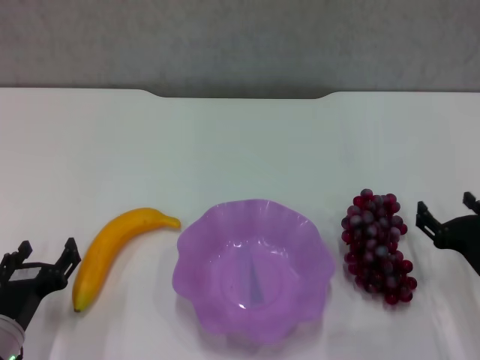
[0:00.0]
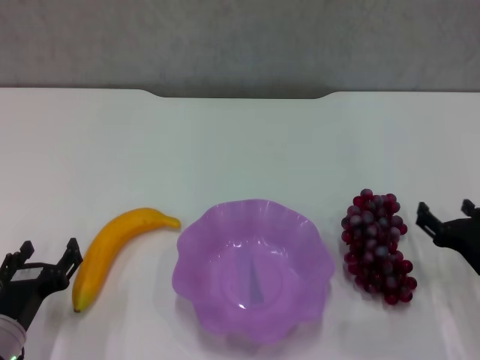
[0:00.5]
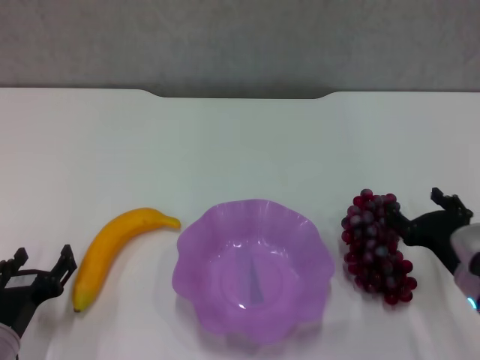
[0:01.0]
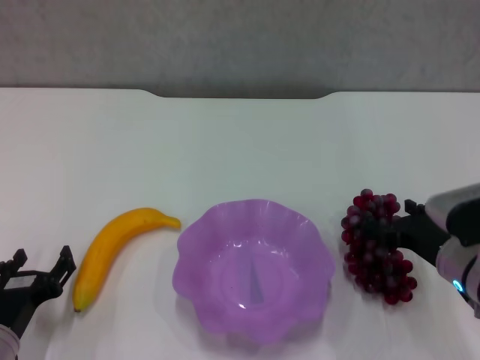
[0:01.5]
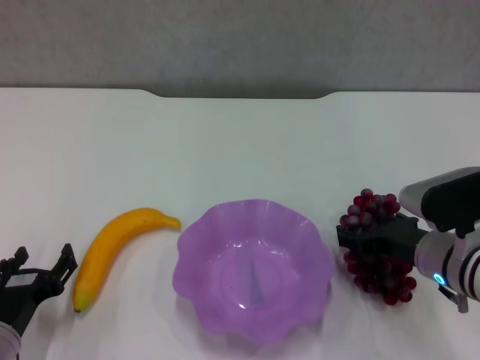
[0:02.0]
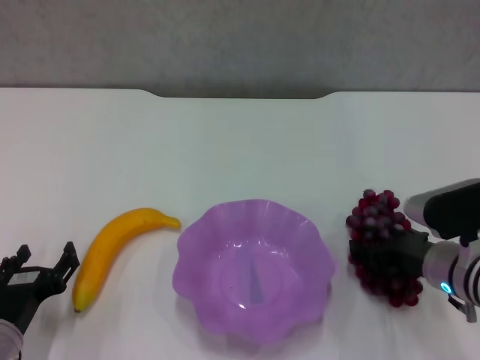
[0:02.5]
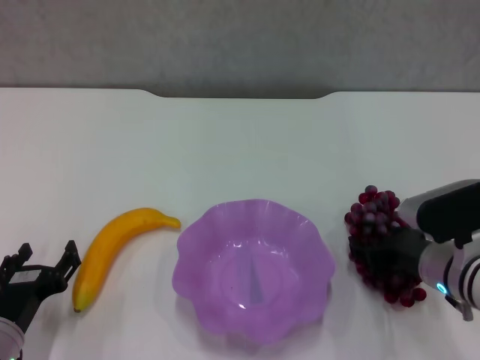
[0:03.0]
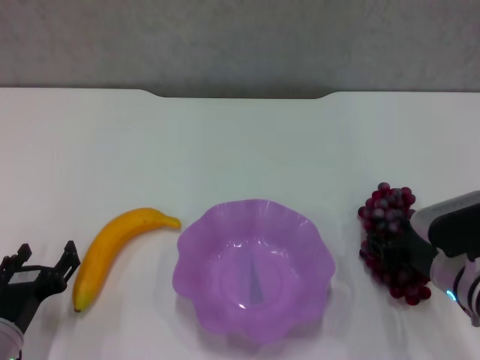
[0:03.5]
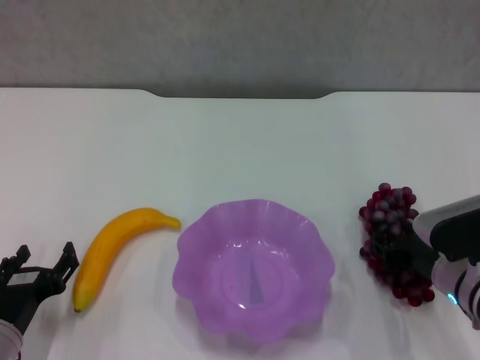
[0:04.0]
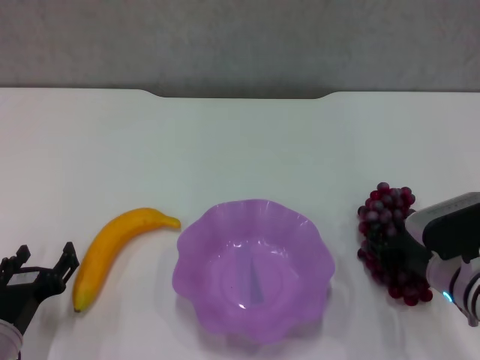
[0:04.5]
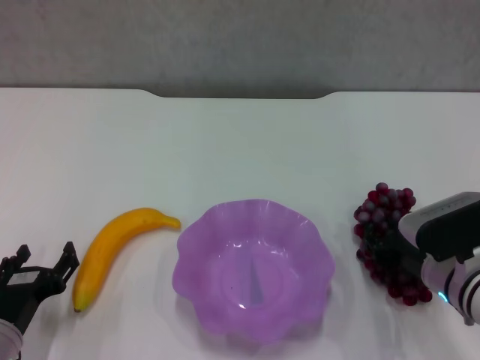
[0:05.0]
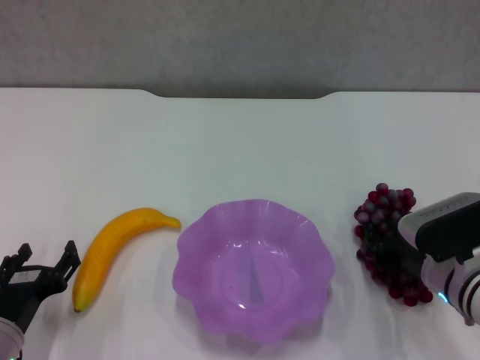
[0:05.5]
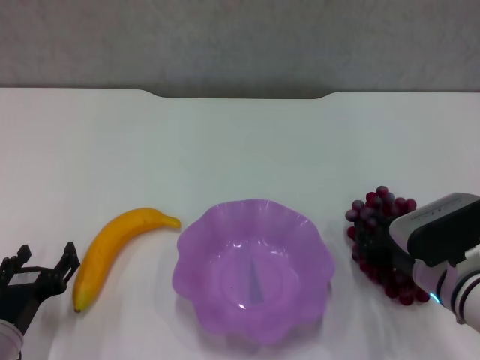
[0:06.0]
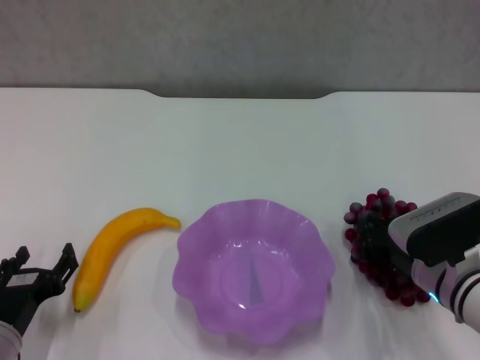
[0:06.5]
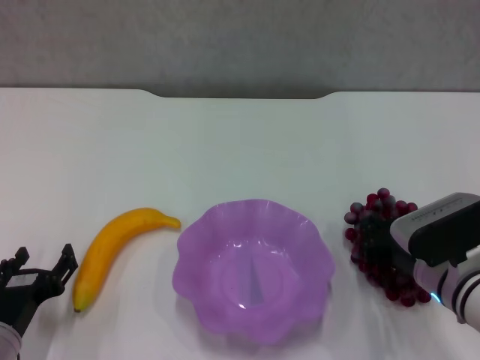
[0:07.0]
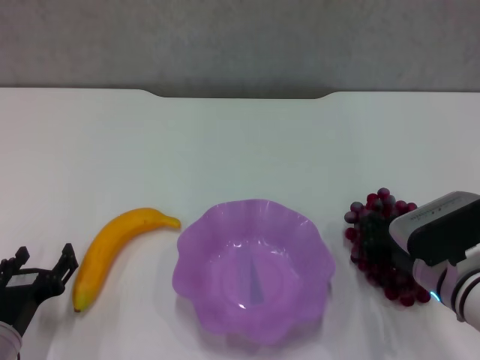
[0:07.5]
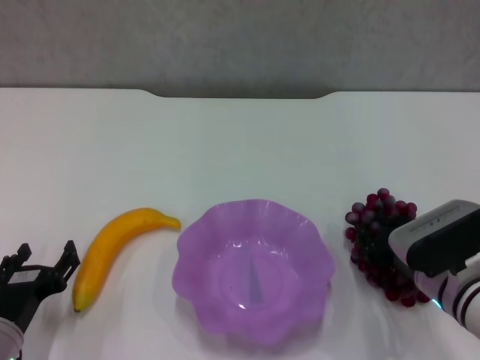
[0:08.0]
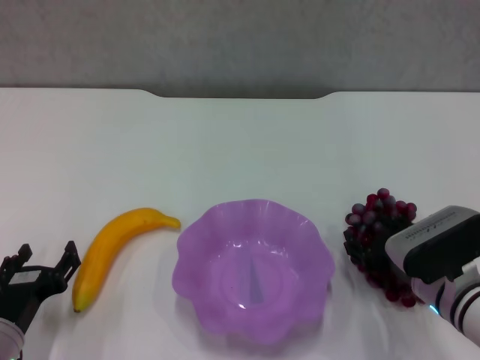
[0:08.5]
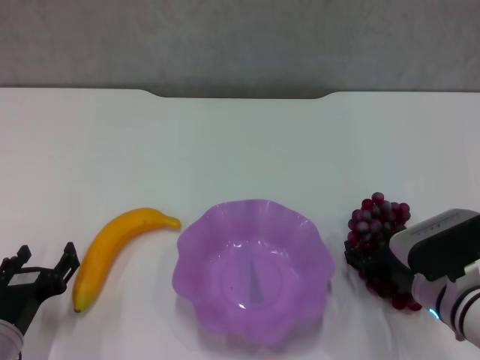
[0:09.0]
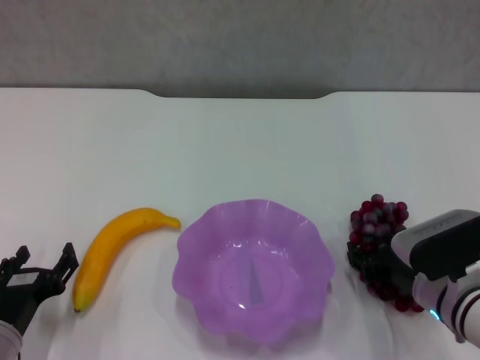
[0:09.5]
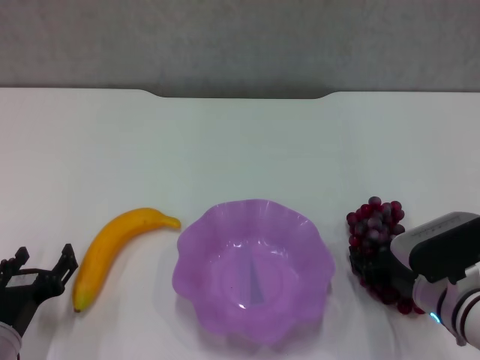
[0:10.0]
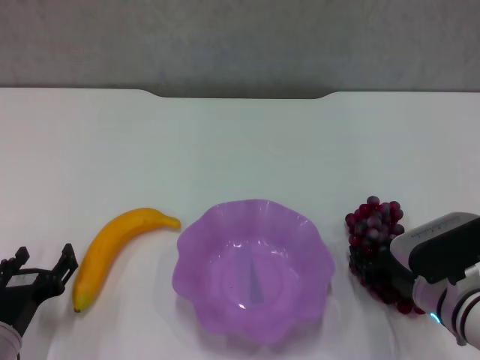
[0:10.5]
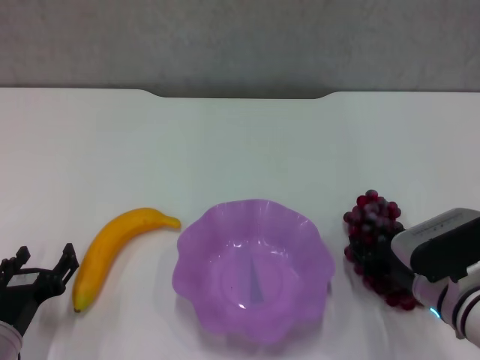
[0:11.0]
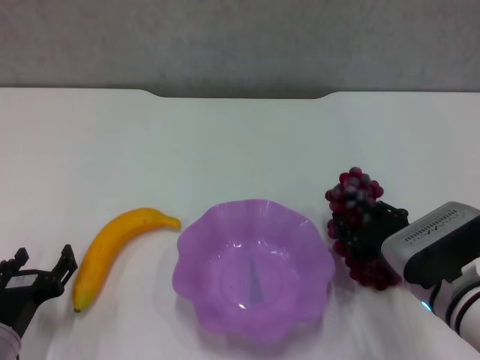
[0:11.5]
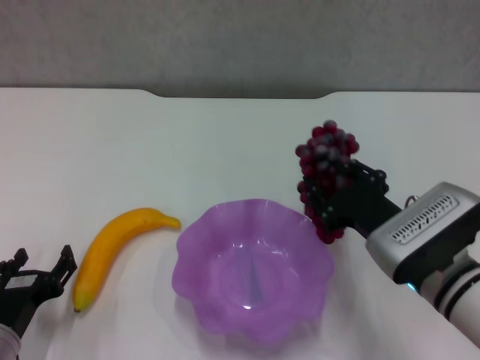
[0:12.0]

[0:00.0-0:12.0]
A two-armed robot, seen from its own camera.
Step, 0.0 to 10.5 s: Grasp the grape with right gripper.
0.0 to 2.0 s: The right gripper moves to the left, approximately 5 cm.
2.0 to 6.0 s: The grippers stay close to where they were, moving slightly.
6.0 to 8.0 s: Both grippers stay put.
8.0 to 10.0 s: The right gripper opens its fingers.
10.0 to 12.0 s: The right gripper is displaced upward by roughly 5 cm.

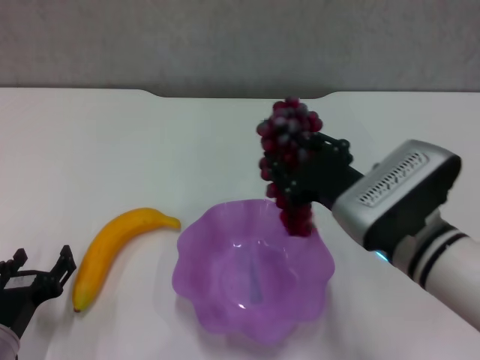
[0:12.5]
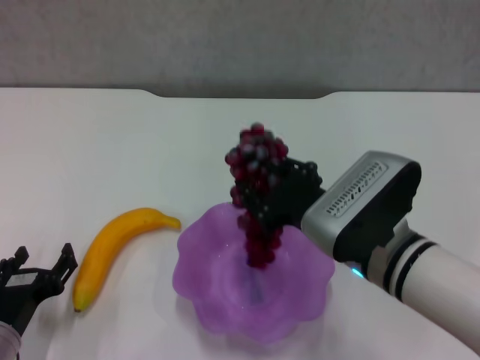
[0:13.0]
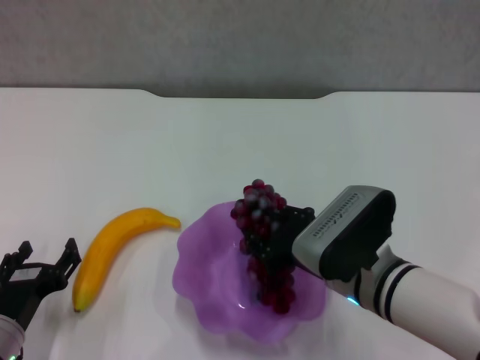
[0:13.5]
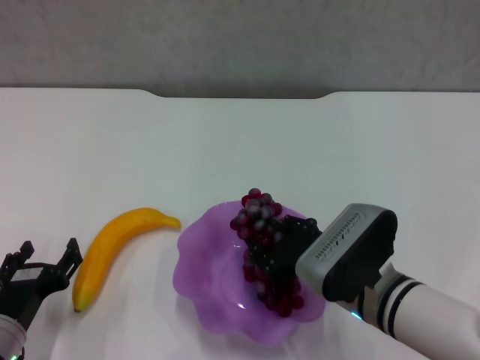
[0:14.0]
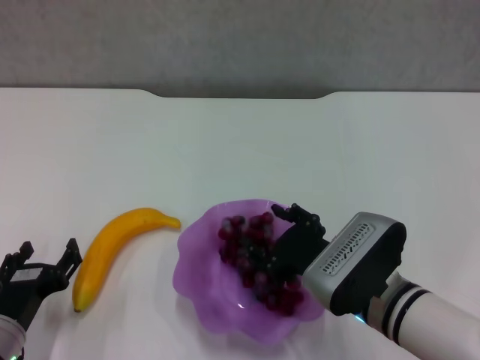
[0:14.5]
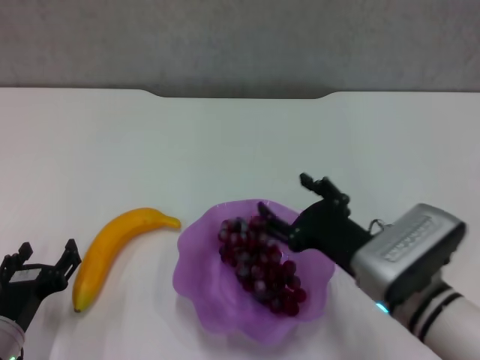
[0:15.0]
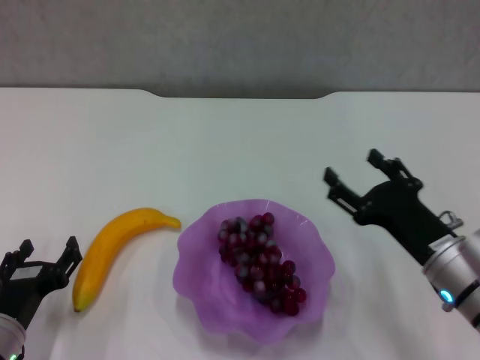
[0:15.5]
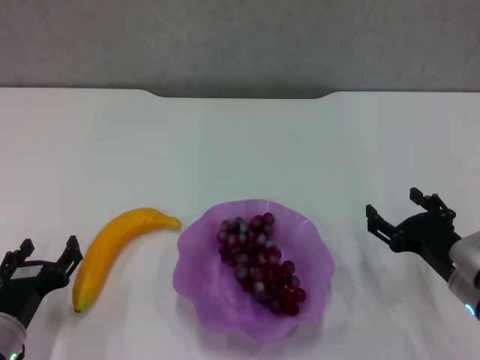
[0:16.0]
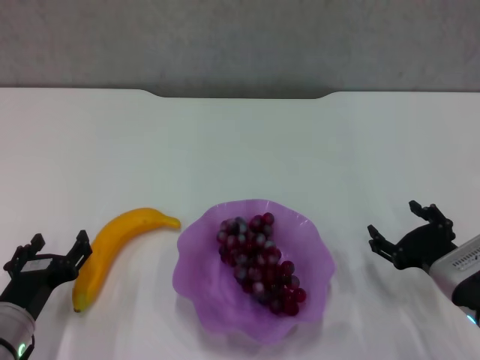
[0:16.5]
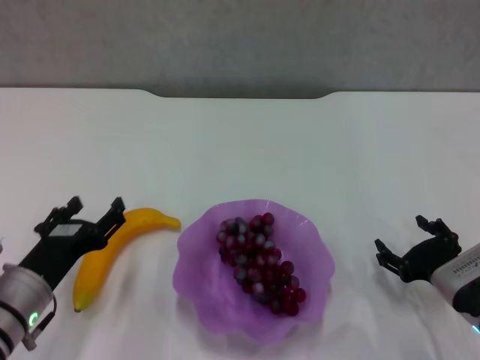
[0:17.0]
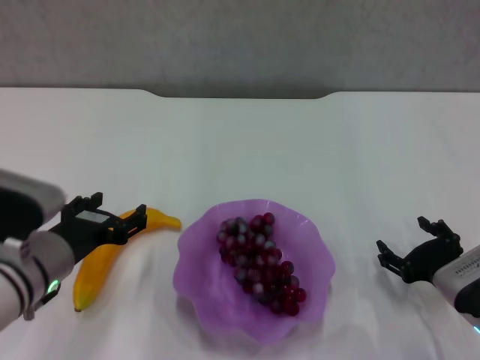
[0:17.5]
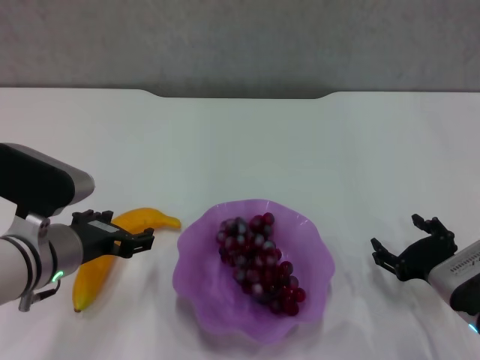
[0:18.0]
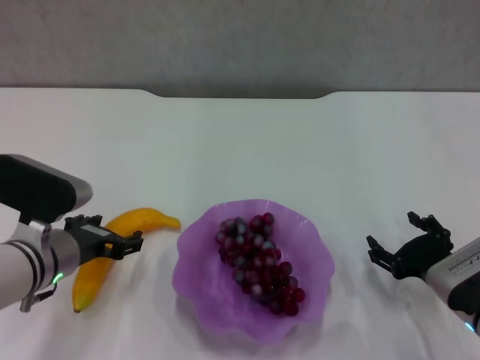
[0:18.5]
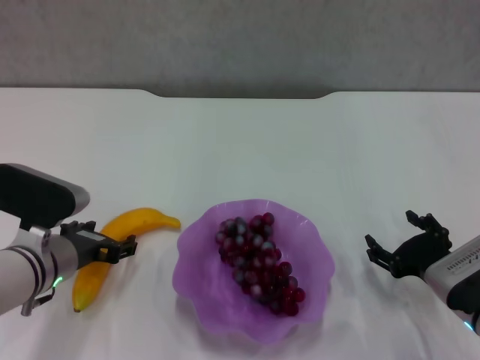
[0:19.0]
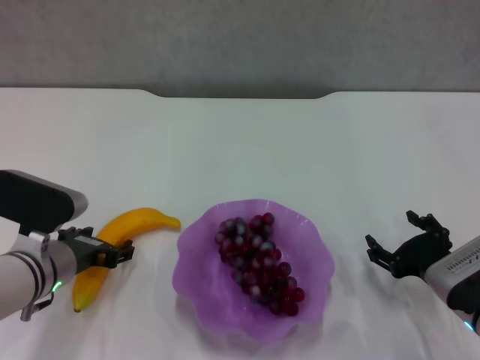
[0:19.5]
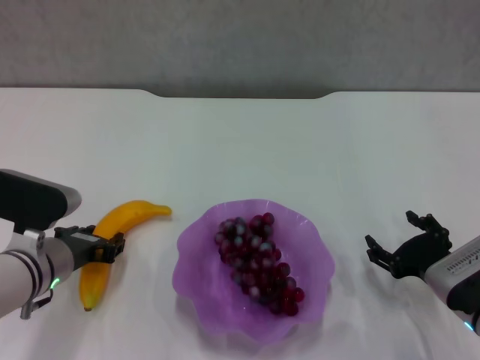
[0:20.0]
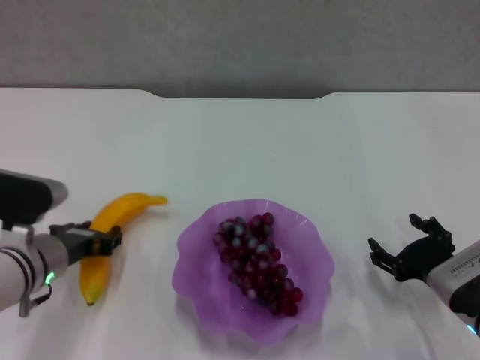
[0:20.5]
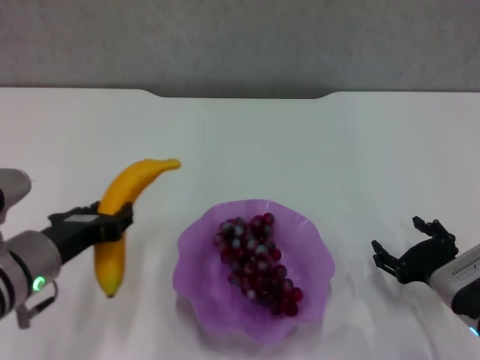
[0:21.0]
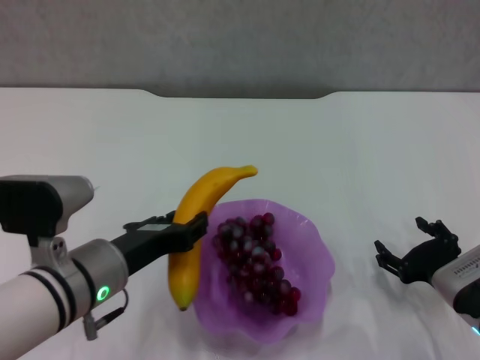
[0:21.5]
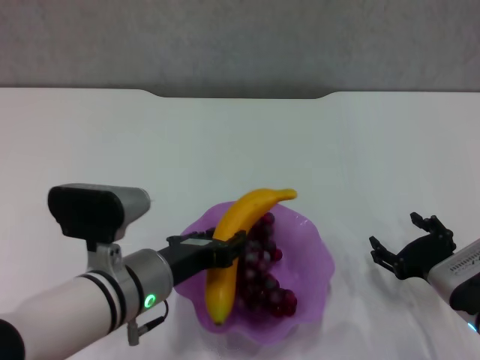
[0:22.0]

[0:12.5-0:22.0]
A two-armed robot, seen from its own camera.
Step, 12.5 to 15.0 s: Place the grape in the purple plate with right gripper.
Step, 15.5 to 20.0 s: Grasp the banana with left gripper.
12.5 to 14.5 s: The right gripper heads downward, covering approximately 5 cm.
14.5 to 16.5 s: The right gripper heads to the right, covering approximately 15 cm, and opens.
16.5 to 18.0 s: The left gripper travels upward and forward by roughly 10 cm.
18.0 to 20.0 s: The left gripper heads downward, covering about 5 cm, and closes.
20.0 to 22.0 s: The left gripper shifts approximately 10 cm to the right.

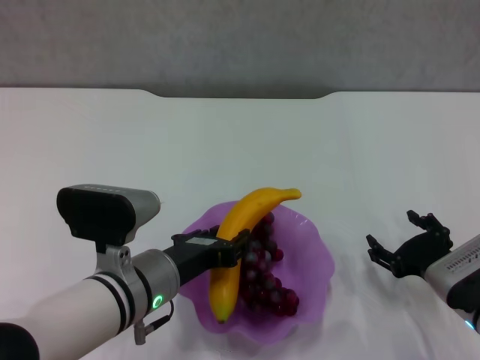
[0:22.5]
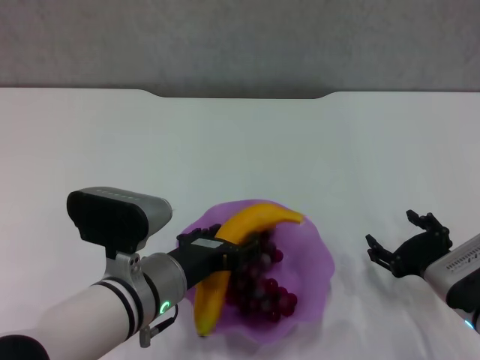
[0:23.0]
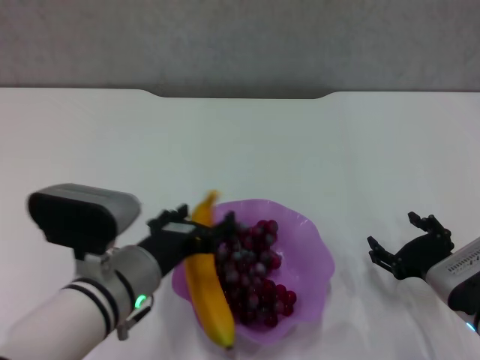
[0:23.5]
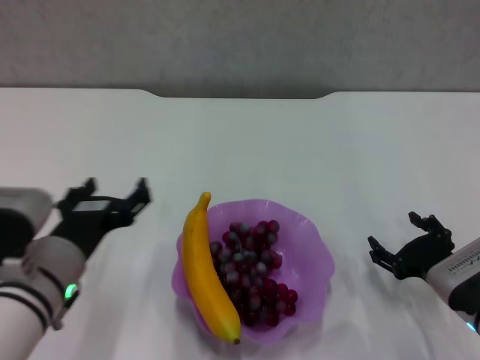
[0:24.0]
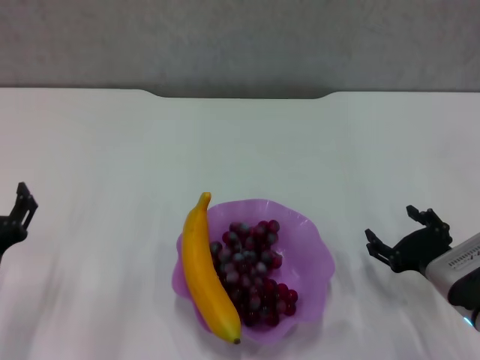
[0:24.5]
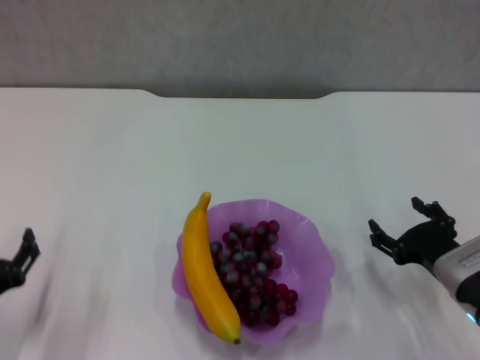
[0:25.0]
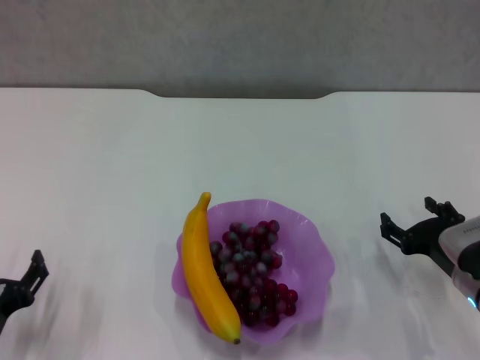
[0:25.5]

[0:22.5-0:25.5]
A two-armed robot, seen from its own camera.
22.5 to 24.0 s: The left gripper is displaced to the left by approximately 5 cm, and opens.
24.0 to 25.5 s: The left gripper is displaced to the left, downward and backward by about 15 cm.

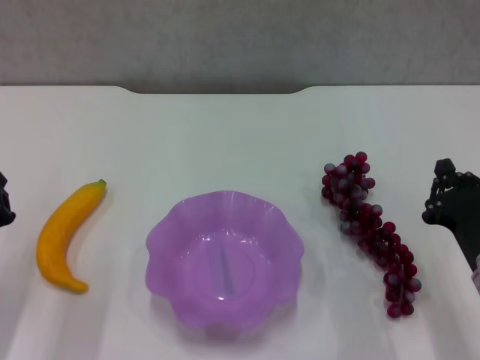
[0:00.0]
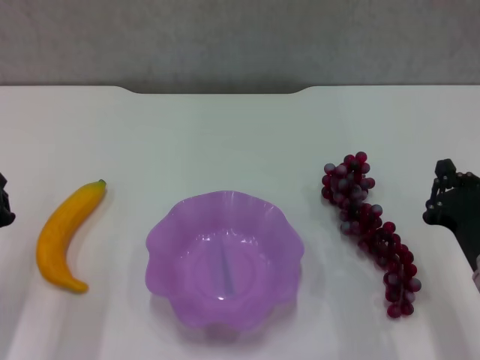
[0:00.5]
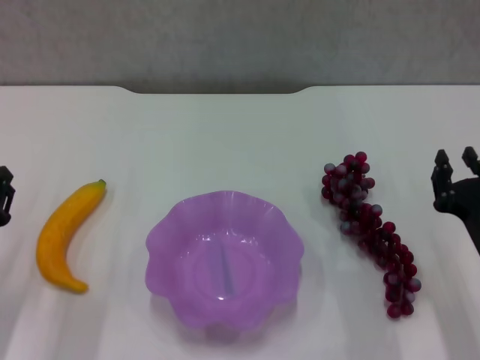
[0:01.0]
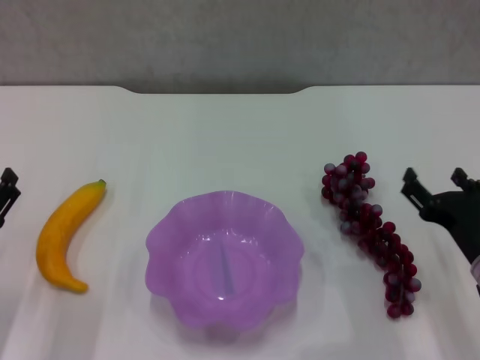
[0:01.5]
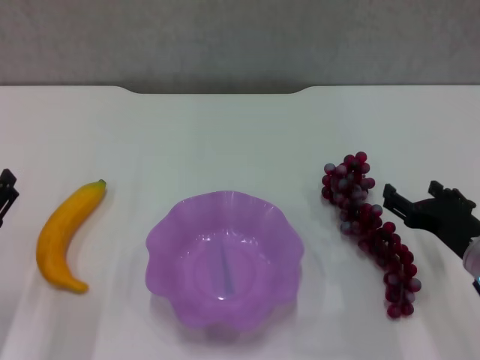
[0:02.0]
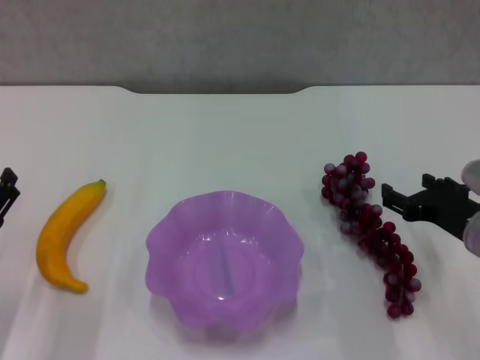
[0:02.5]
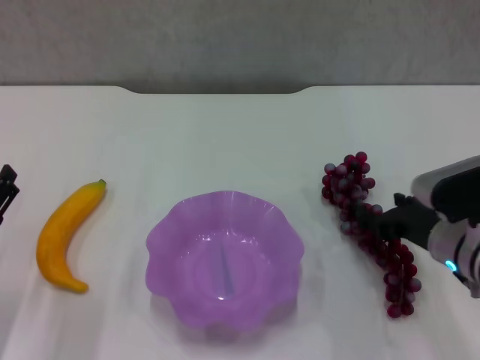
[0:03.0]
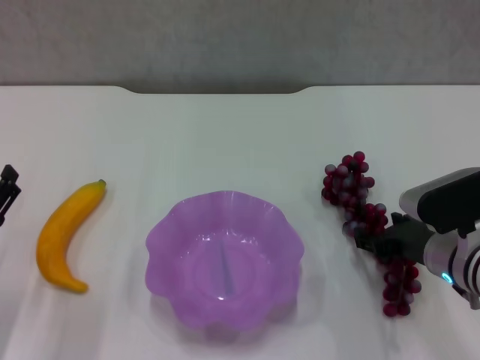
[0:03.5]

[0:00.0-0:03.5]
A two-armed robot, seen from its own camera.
0.0 to 2.0 s: The right gripper opens up.
